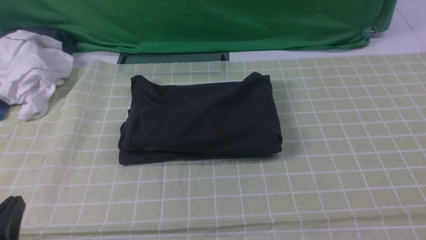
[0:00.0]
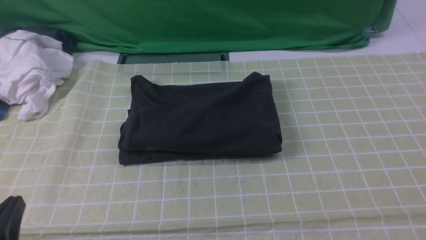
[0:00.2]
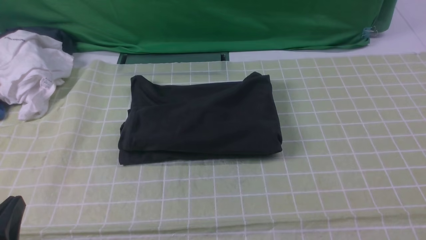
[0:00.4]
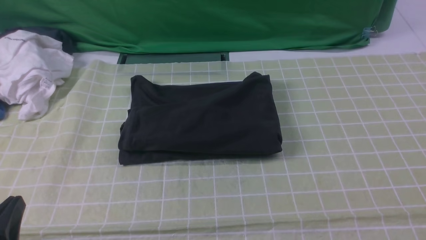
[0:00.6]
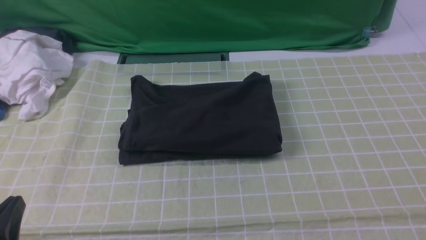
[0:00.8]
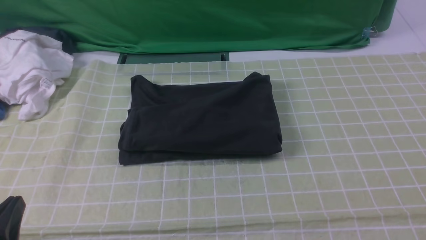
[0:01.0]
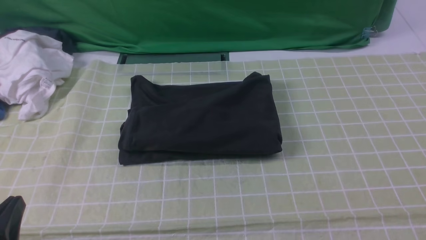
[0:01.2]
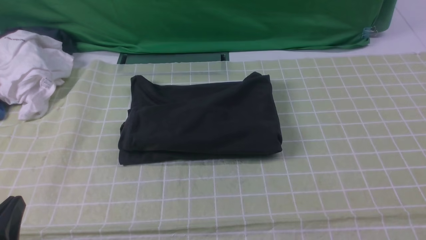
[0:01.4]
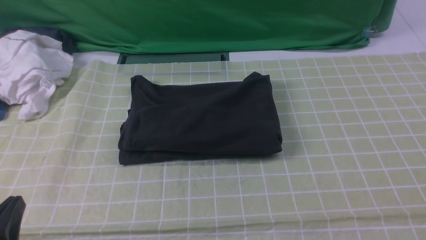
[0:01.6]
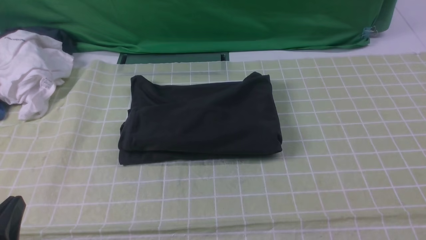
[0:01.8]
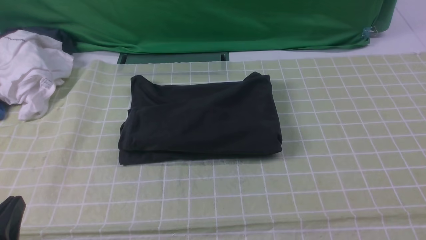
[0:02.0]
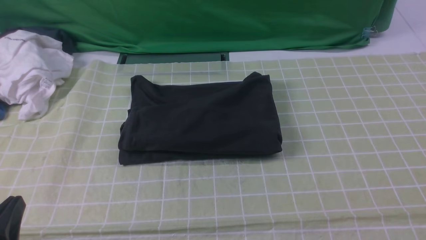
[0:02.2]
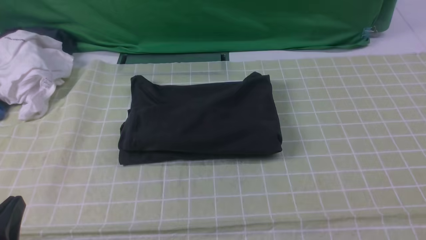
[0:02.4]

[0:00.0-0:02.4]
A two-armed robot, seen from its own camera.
0:00.0 to 0:02.4: Both grippers stay about where they are.

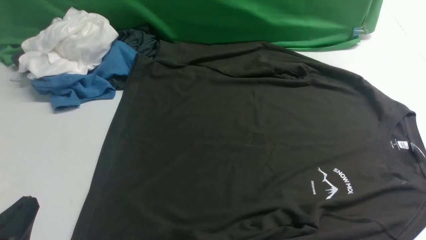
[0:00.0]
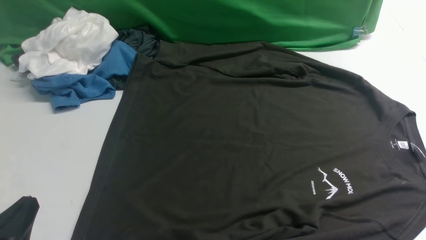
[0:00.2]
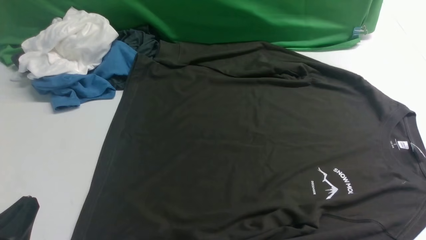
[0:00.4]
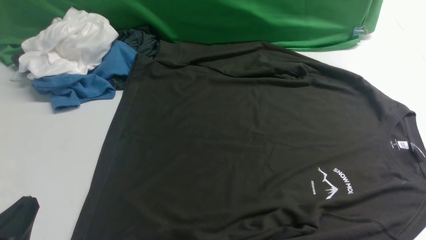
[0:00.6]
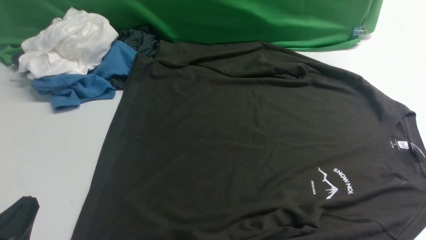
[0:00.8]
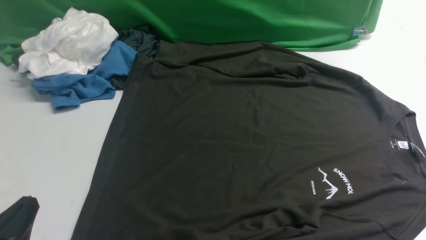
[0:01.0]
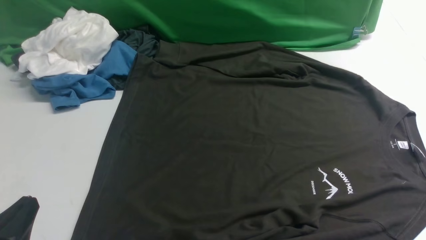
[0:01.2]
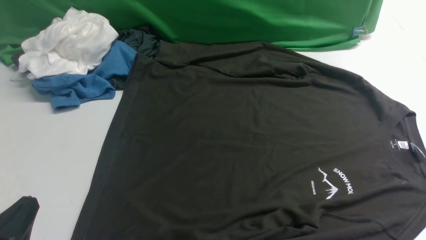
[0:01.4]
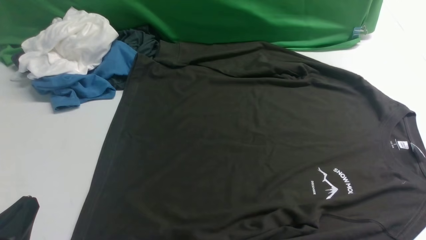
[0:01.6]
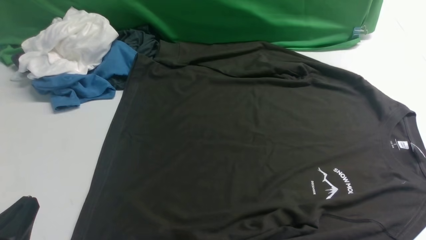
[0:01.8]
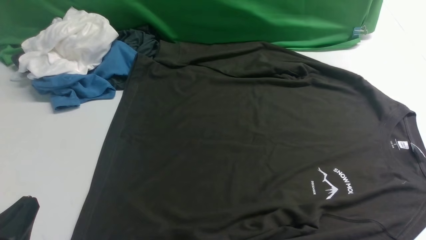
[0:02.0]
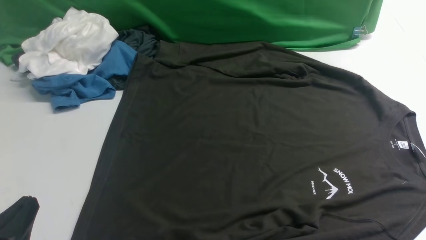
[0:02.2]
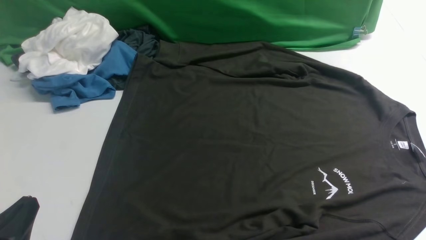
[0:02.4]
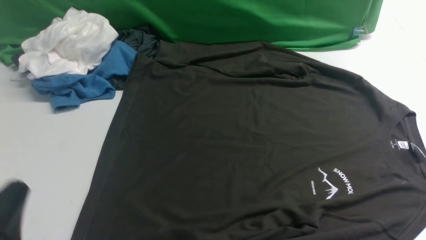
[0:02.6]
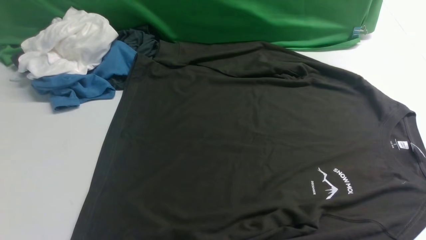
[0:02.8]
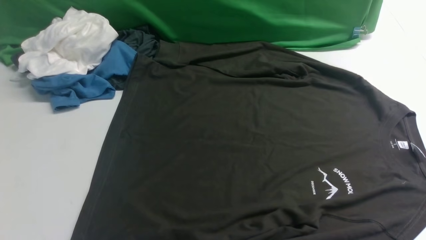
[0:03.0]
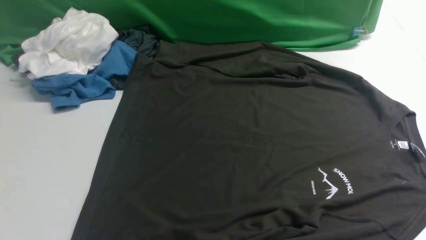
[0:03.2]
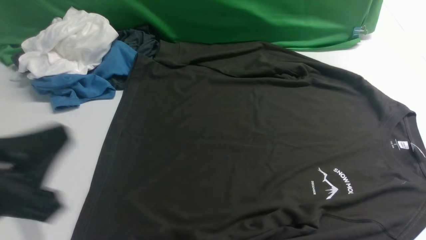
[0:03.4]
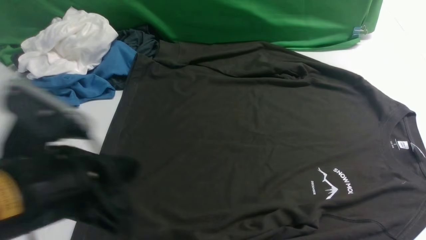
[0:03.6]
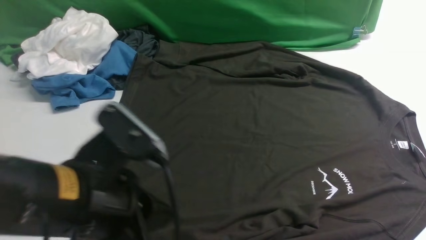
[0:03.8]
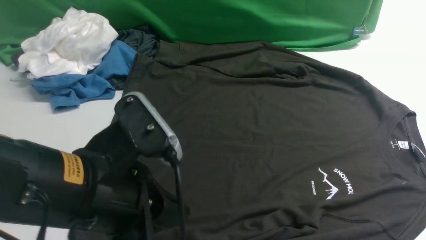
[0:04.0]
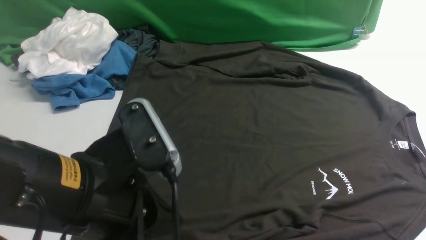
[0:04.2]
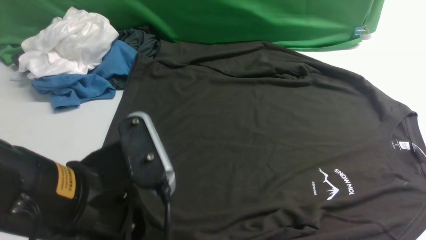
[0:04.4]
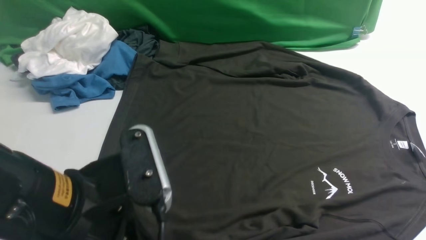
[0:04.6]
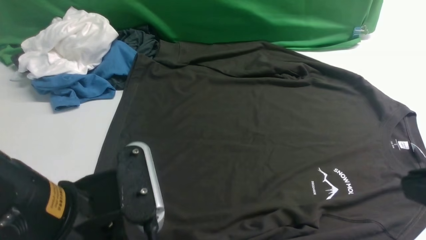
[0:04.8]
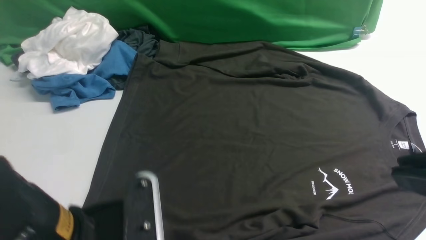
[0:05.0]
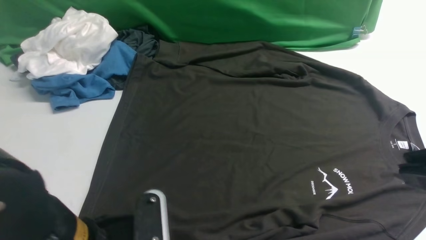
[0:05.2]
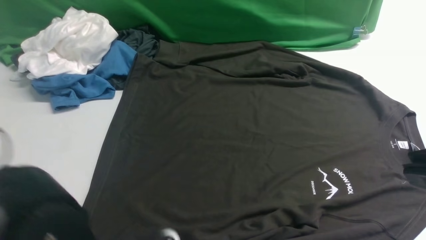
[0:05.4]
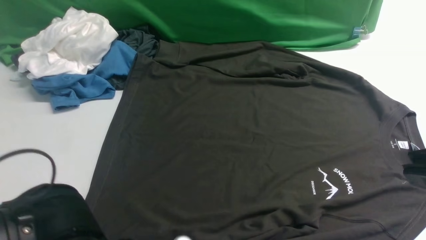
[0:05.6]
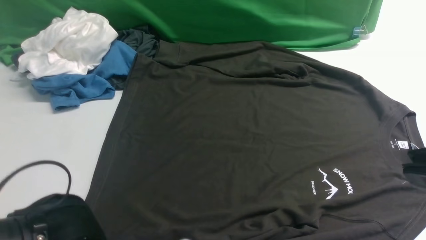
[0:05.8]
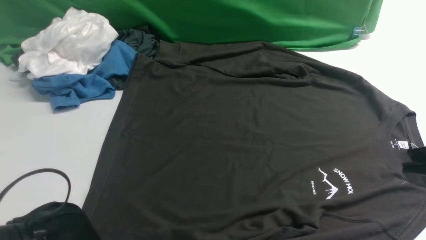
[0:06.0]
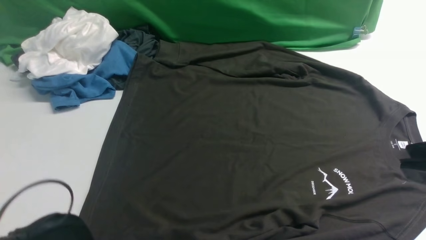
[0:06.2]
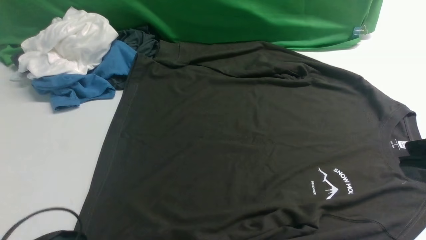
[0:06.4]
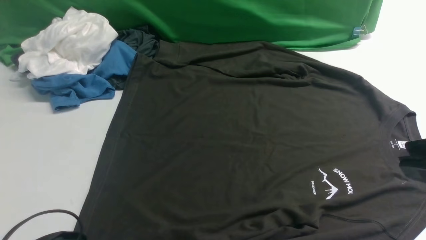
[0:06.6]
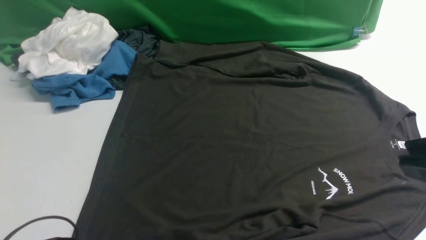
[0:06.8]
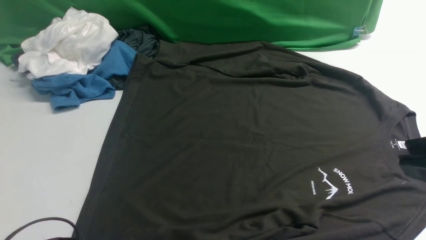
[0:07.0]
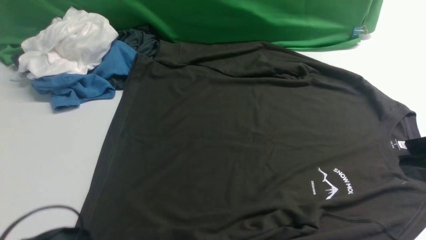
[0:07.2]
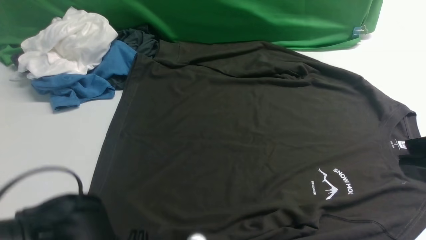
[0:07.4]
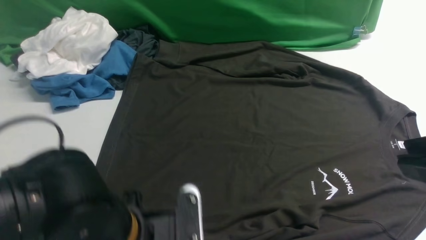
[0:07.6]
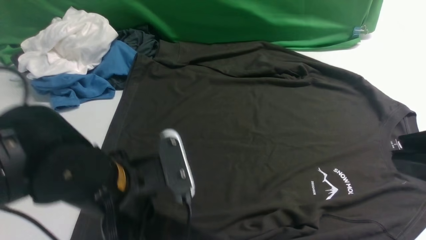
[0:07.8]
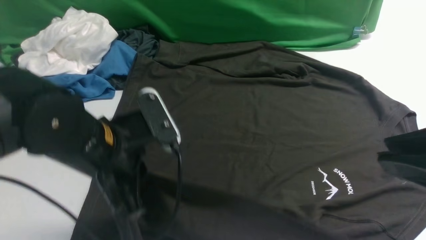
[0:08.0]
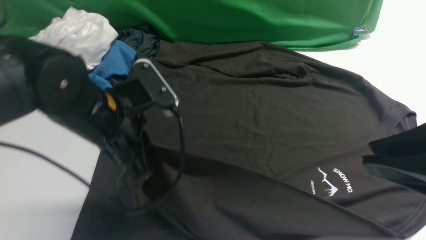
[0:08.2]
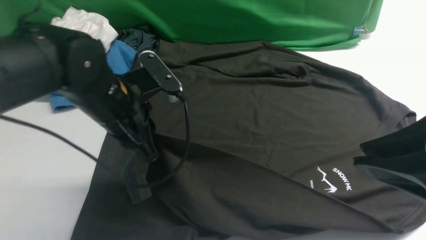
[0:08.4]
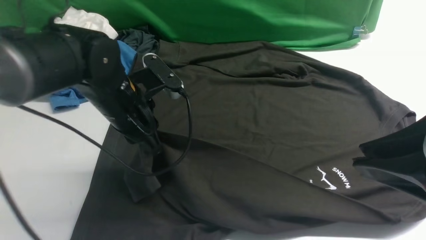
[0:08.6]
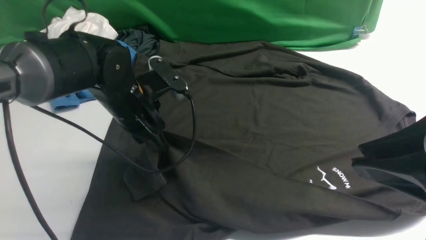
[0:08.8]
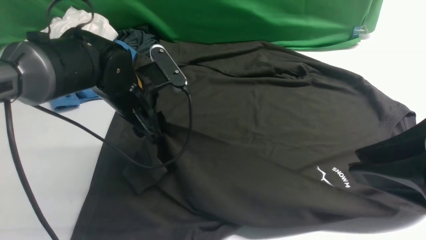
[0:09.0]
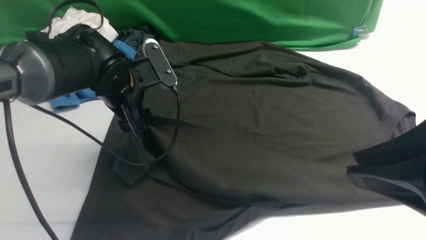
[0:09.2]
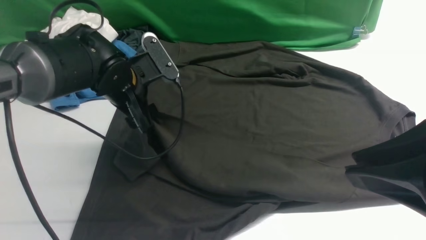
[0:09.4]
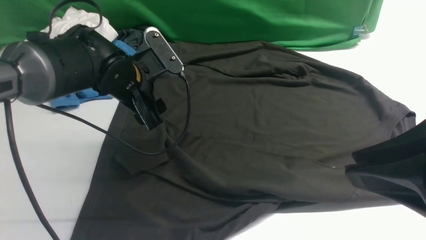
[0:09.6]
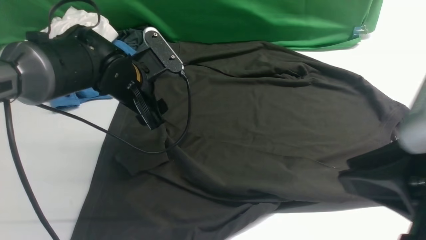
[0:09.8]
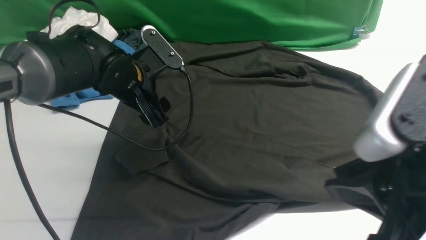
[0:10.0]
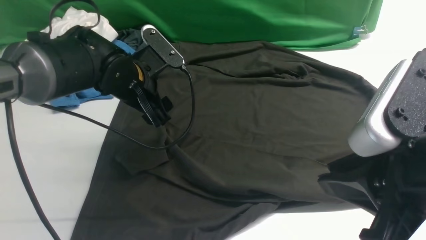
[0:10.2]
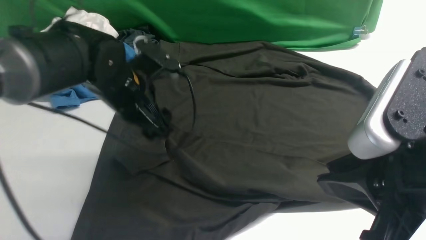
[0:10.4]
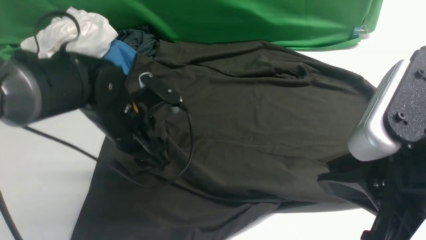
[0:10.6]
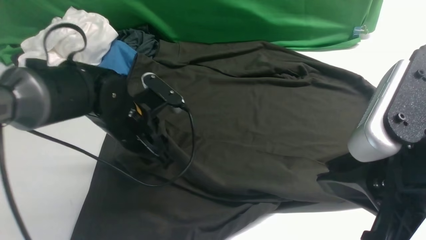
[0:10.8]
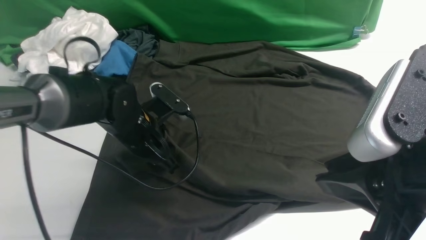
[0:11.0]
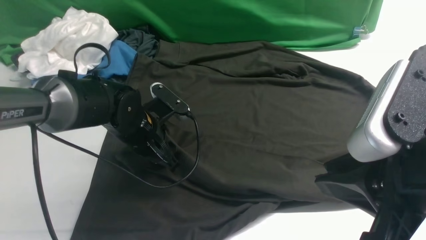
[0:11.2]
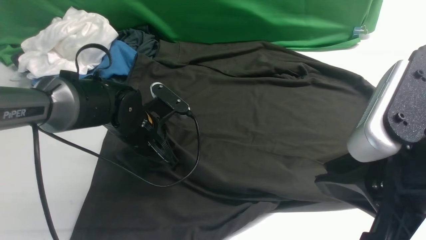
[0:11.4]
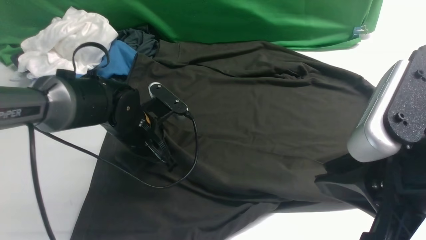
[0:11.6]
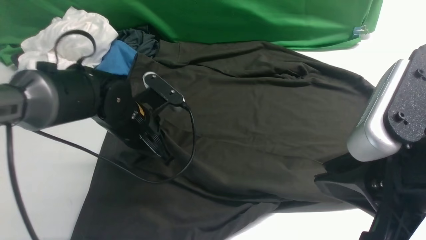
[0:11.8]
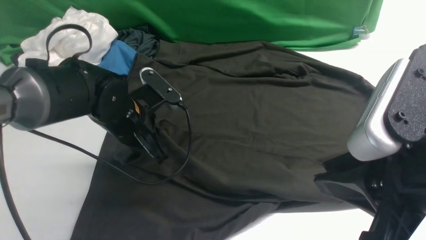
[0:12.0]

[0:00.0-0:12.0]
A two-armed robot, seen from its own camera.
Step, 0:00.0 to 0:07.8: use the left arm to clamp the cuff closest to it.
0:01.6 to 0:03.0: The left gripper heads upward, covering some 5 cm.
0:03.0 to 0:04.4: The left gripper heads to the right, forward and upward, covering approximately 15 cm.
0:04.4 to 0:06.0: The right gripper goes about 15 cm upward and to the left. The left gripper heads downward, covering about 10 cm, and opens.
0:06.0 to 0:07.6: The left gripper closes up.
0:07.6 to 0:09.0: The left gripper shifts roughly 20 cm forward, and opens up.
0:09.0 to 0:10.4: The left gripper opens its fingers.
0:10.4 to 0:12.0: The left gripper closes its fingers.

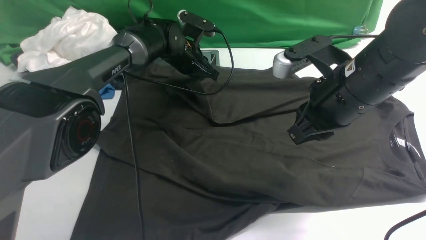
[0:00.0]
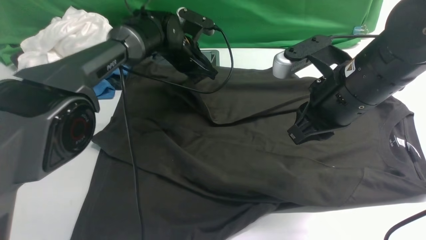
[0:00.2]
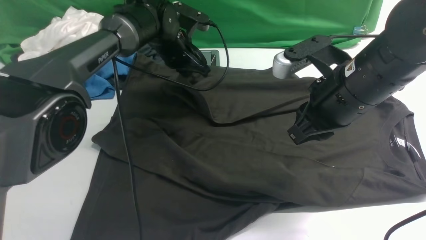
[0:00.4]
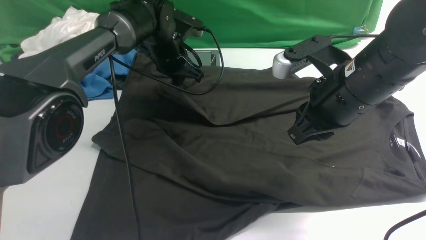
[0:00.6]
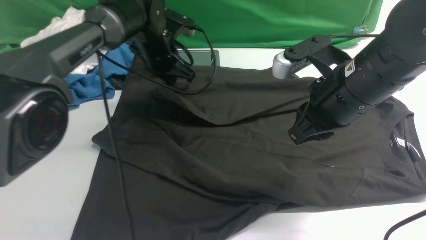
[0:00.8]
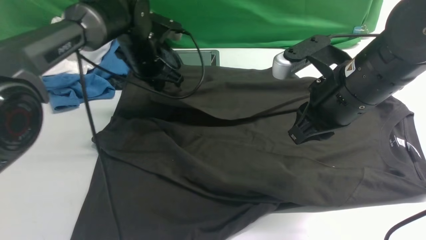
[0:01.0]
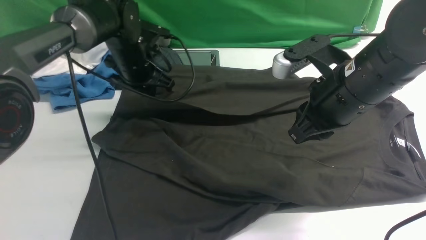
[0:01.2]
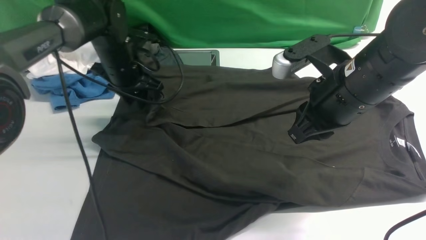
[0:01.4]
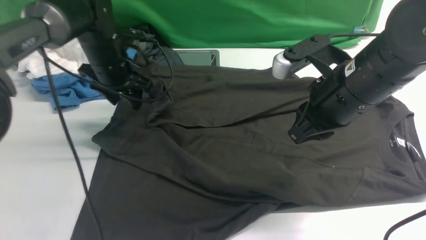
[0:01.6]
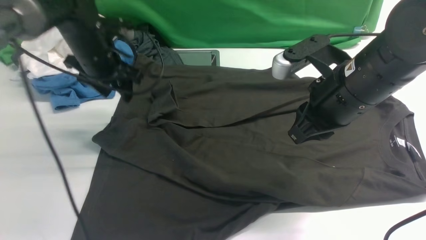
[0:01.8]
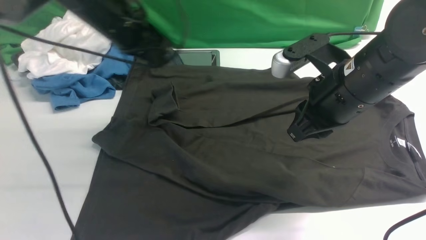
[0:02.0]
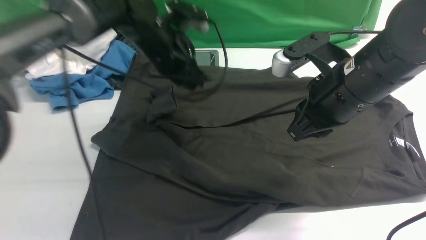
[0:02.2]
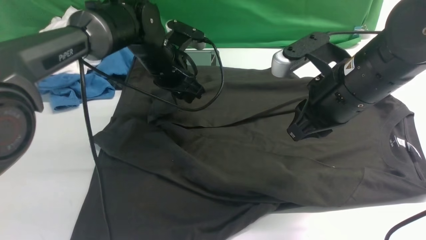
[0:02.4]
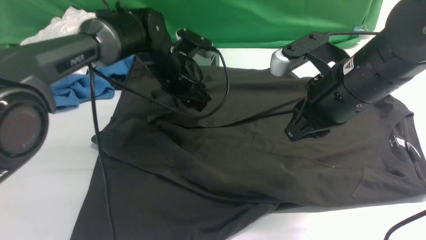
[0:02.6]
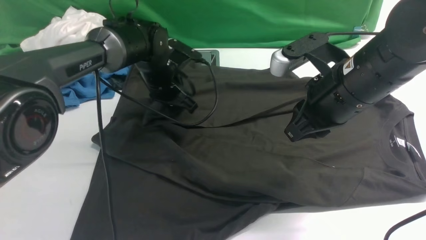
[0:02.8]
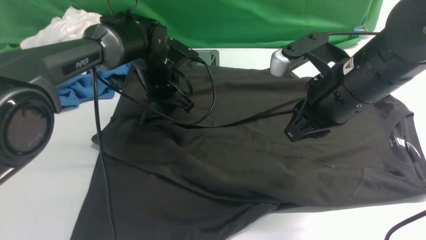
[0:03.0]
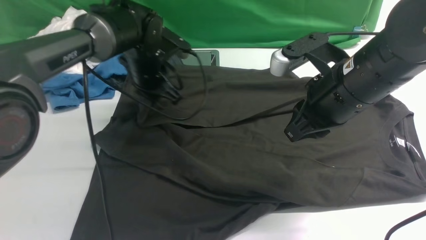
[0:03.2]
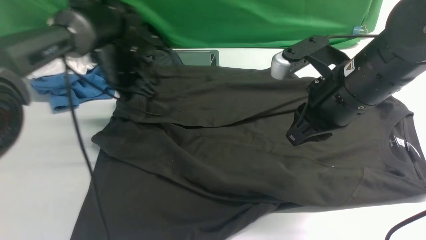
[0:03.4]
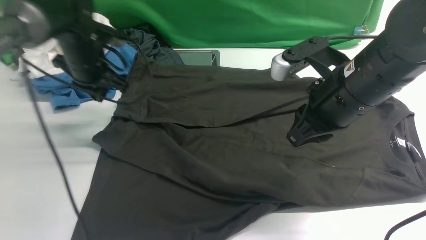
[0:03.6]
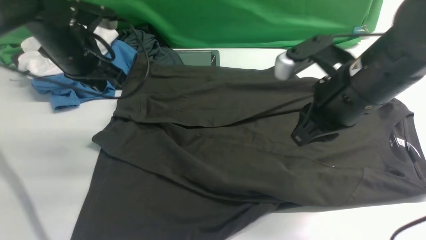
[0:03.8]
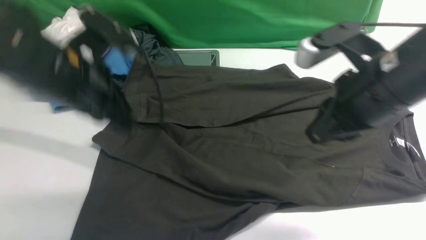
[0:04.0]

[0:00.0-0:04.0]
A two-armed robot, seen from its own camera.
Step, 0:00.4 to 0:03.8: use the left arm to drag and drop the cuff onto the cuff closest to the left arm.
0:00.0 to 0:01.4: The left gripper goes some 10 cm to the left and backward.
0:01.4 to 0:02.6: The left gripper moves to the right, about 5 cm.
0:02.6 to 0:04.0: The left gripper travels backward, upward and to the left by roughly 20 cm, and closes up.
